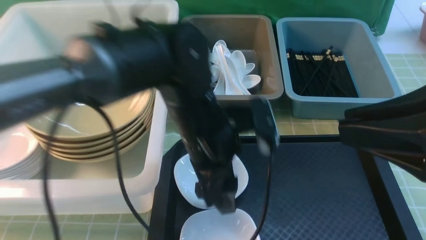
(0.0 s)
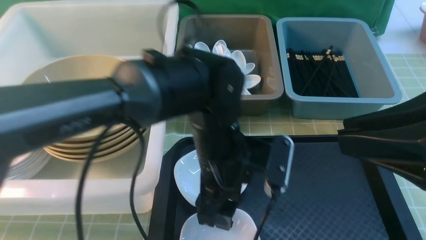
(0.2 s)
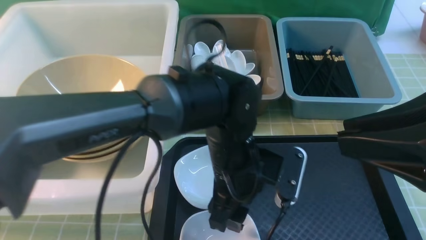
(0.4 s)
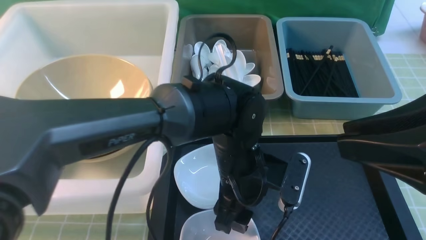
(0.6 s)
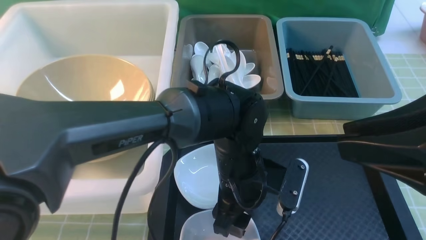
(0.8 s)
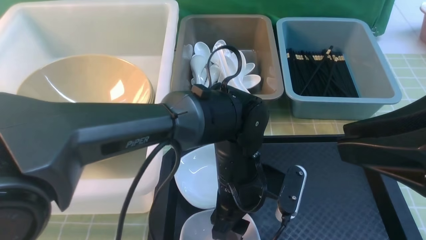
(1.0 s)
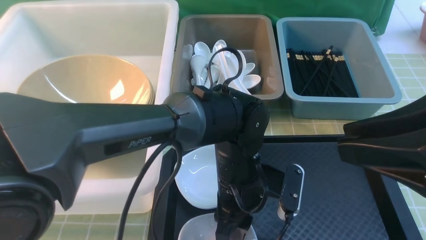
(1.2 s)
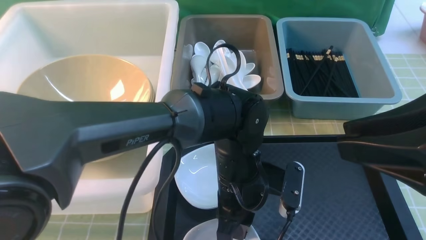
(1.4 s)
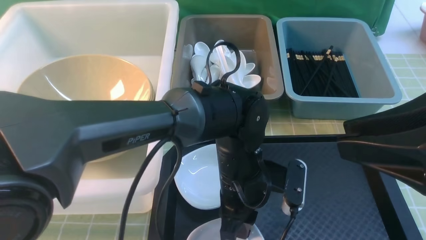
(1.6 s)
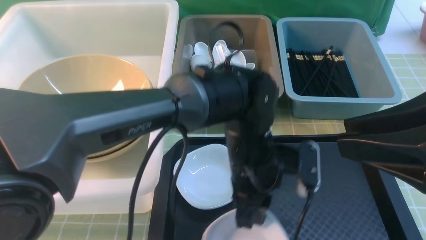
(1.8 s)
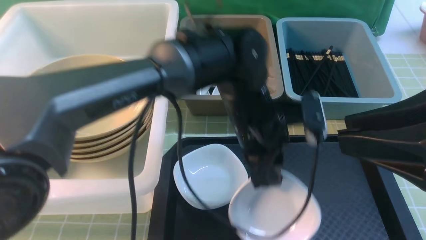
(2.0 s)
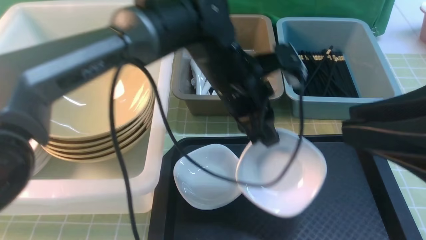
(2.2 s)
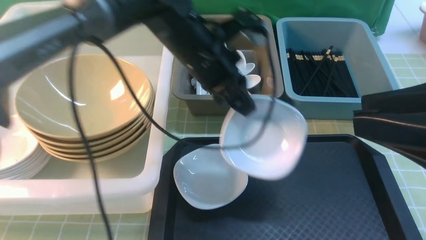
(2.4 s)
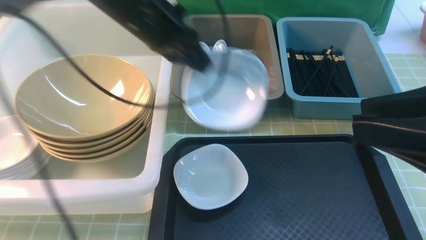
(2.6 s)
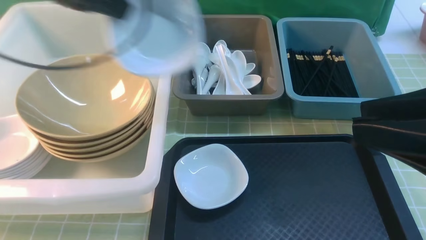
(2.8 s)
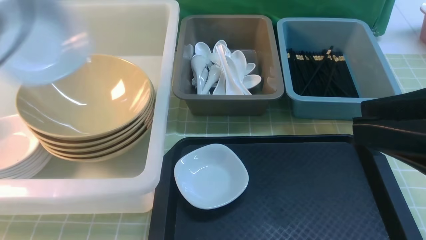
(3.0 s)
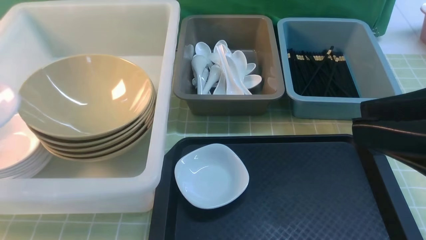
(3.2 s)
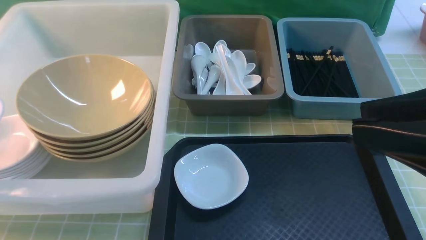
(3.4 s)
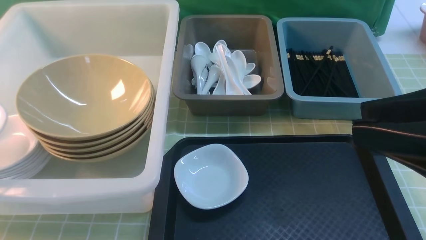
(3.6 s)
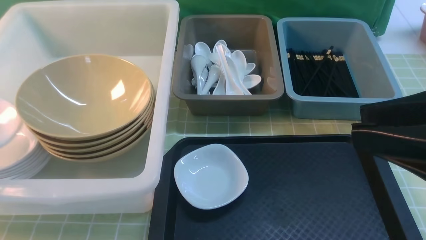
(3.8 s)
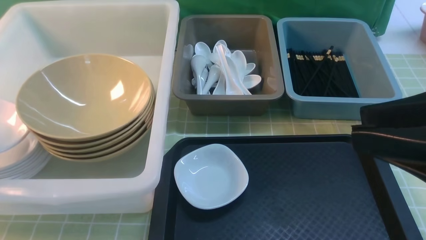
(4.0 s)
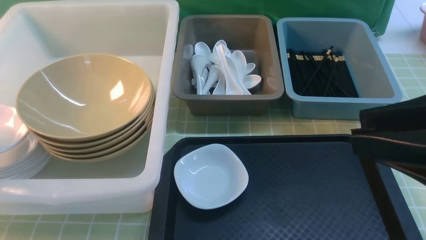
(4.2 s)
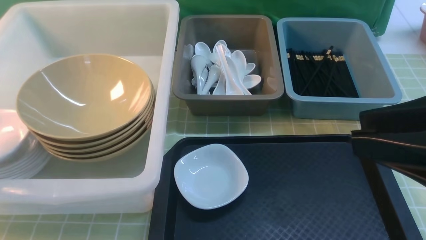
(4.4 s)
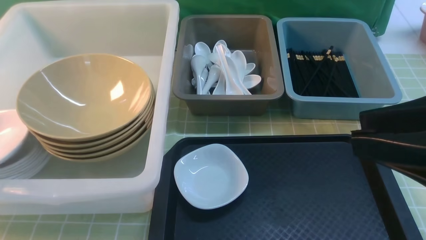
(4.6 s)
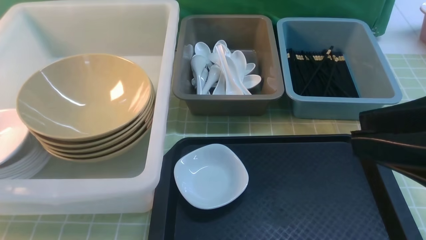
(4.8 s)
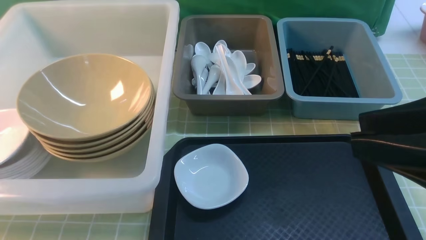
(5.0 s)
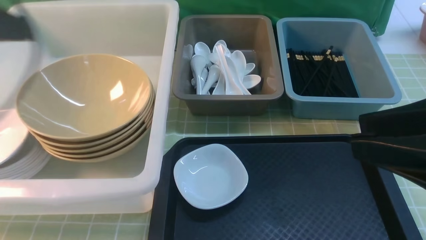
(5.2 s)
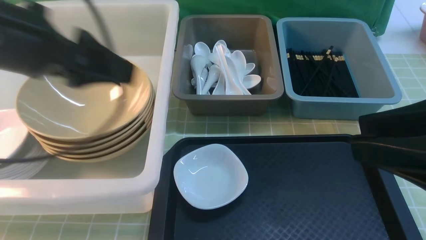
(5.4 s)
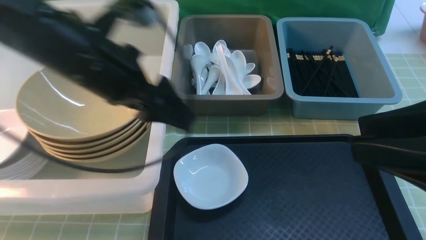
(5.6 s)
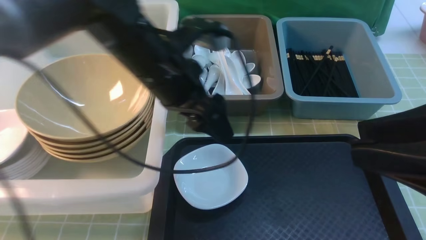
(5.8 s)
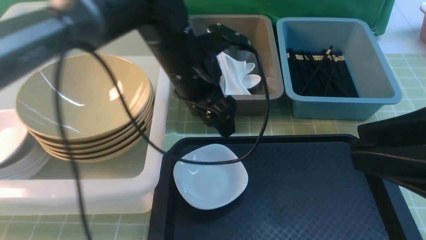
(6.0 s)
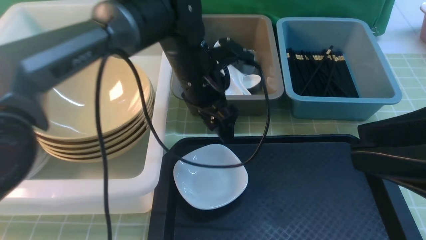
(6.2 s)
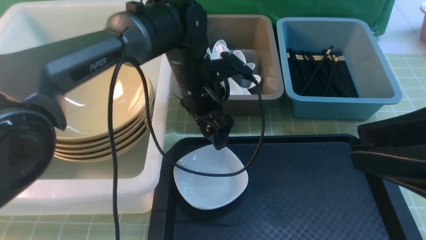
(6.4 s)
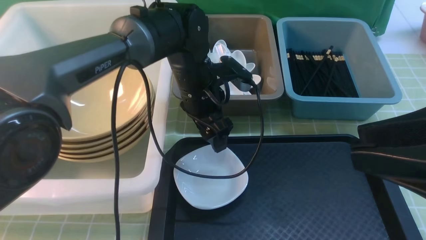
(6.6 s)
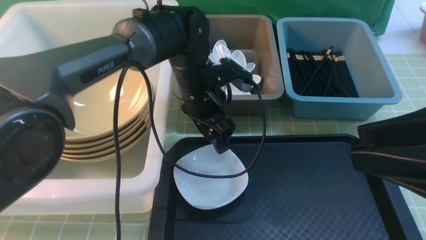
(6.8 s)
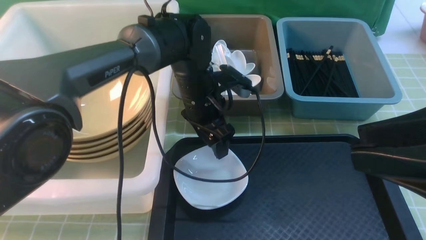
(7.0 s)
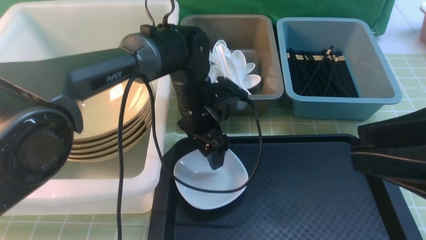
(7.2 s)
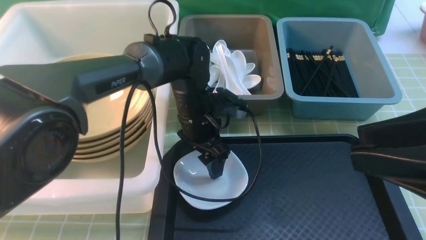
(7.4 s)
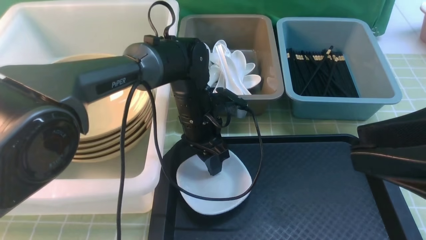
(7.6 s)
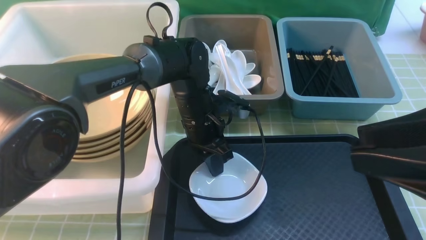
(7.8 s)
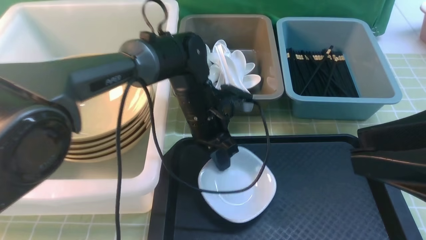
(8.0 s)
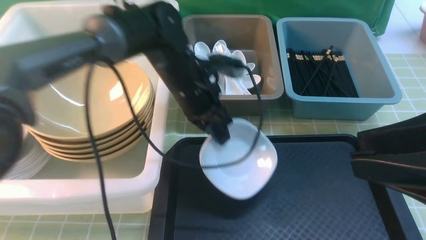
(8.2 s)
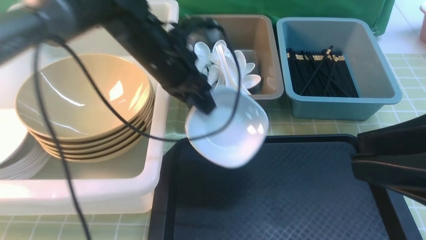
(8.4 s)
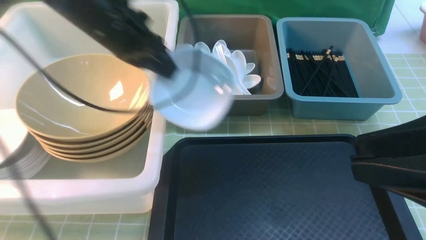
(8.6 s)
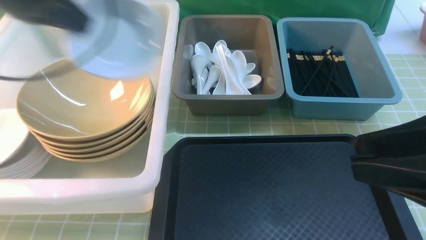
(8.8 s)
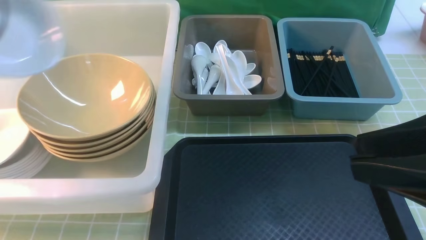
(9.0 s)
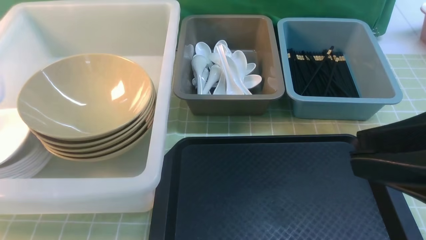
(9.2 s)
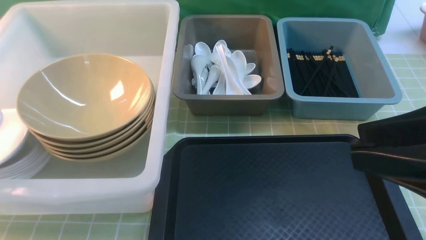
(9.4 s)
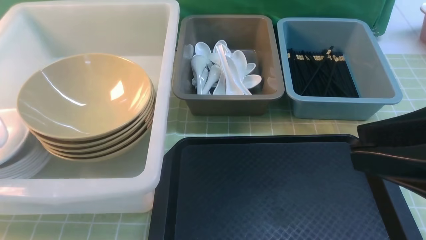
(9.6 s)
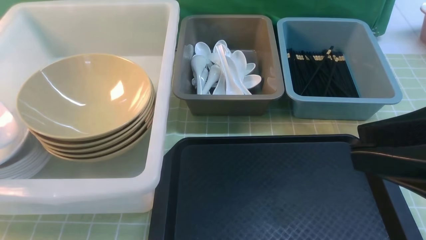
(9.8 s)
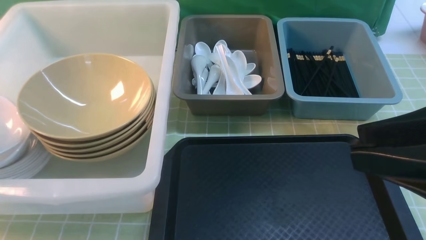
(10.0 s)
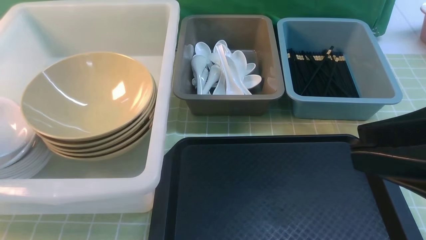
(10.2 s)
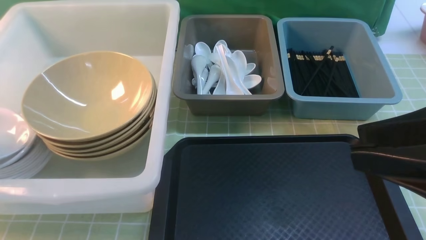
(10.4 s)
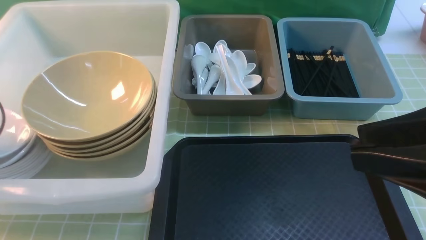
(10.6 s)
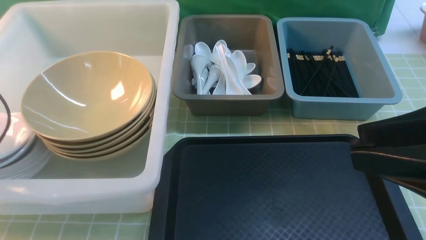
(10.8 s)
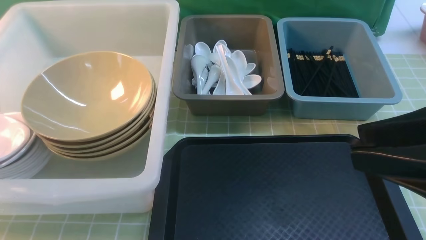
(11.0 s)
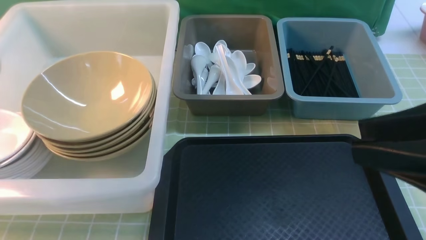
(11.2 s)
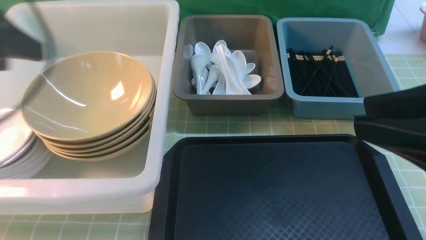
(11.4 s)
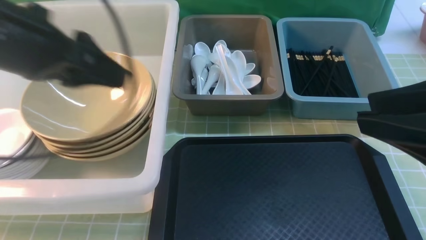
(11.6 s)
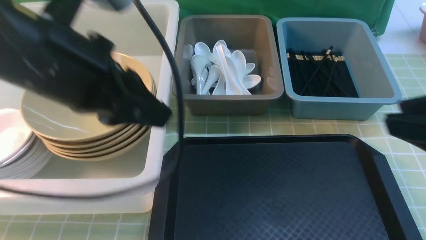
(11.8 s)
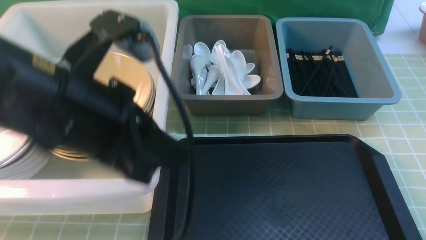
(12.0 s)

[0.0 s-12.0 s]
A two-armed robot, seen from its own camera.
Task of the whole recording: on green table put chopsticks spoon bowls plates into blue grey white boxes.
Step, 0.0 to 2.2 s: use the left arm to grab the plate.
Step, 2.4 to 5.0 s: use the left arm to put the plate into the large storage box on the left.
Step, 5.4 to 8.4 s: use the left arm to grab the plate.
Step, 8.6 to 11.2 s: use the left arm to put the plate into the large storage box on the left.
0.0 to 1.6 s: The left gripper moves downward and to the right, roughly 10 cm, and closes its fingers.
1.6 to 3.0 s: The left gripper travels to the left and upward by about 40 cm.
3.0 to 4.4 s: The left gripper is displaced downward and to the left by some 15 cm, and opens up.
4.4 to 6.0 s: The left gripper moves to the right, some 35 cm.
6.0 to 7.6 s: The left gripper heads downward, covering about 10 cm, and closes.
7.6 to 9.0 s: The left gripper shifts approximately 40 cm to the left and upward, and closes its fingers.
9.0 to 10.4 s: The left gripper moves downward and to the left, about 15 cm.
10.4 to 12.0 s: The right gripper heads to the right, covering roughly 5 cm. The left gripper travels to the right by some 30 cm, and opens, then closes again.

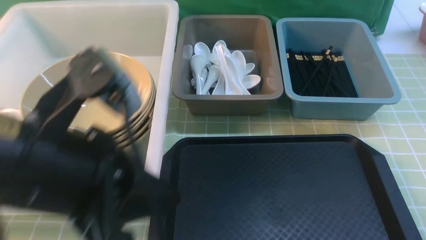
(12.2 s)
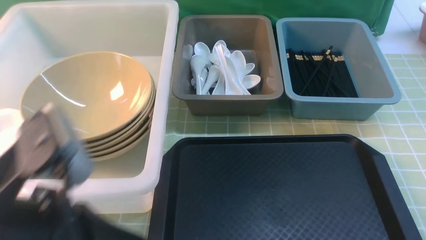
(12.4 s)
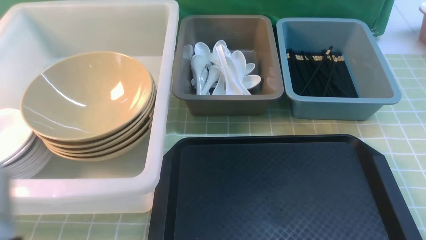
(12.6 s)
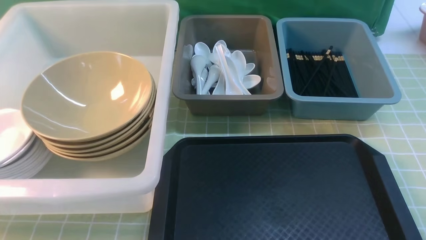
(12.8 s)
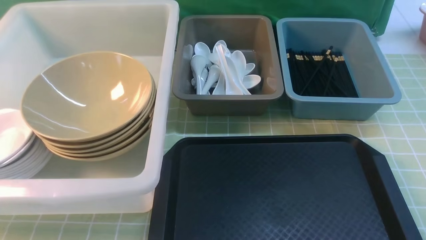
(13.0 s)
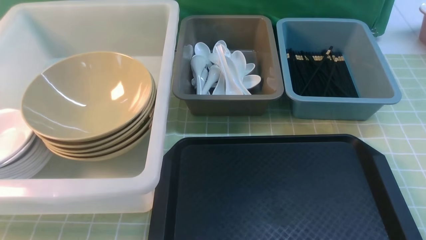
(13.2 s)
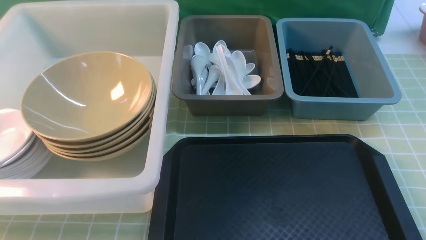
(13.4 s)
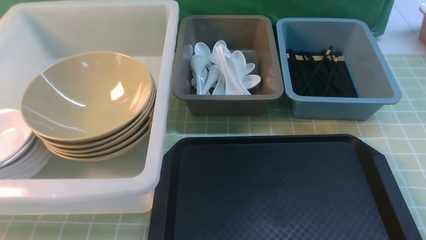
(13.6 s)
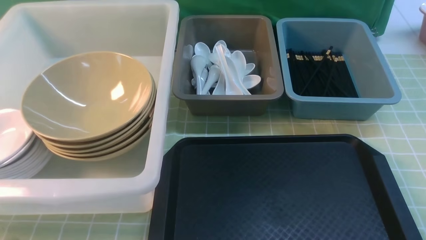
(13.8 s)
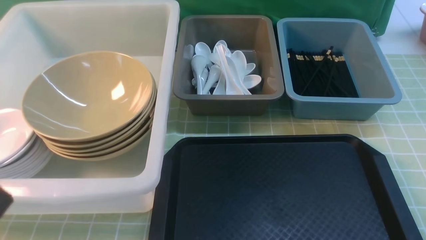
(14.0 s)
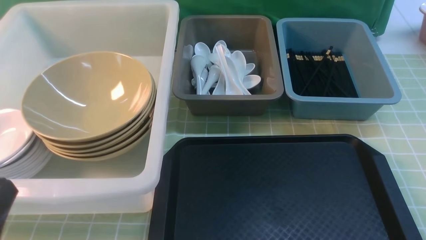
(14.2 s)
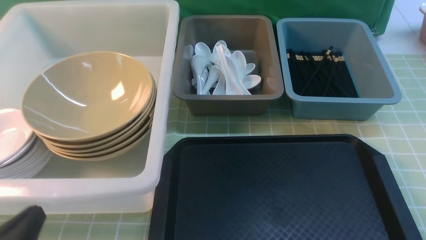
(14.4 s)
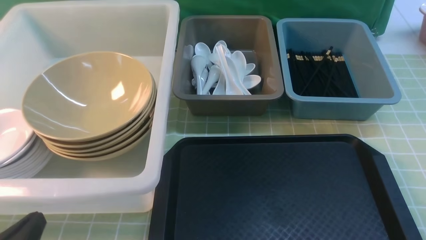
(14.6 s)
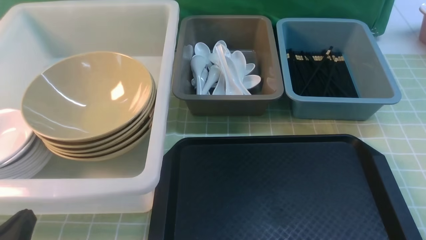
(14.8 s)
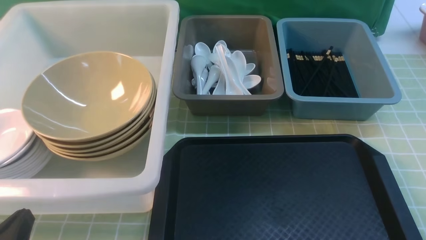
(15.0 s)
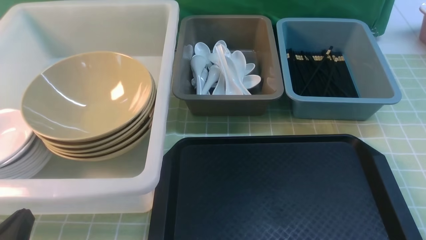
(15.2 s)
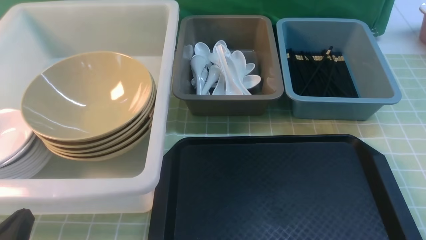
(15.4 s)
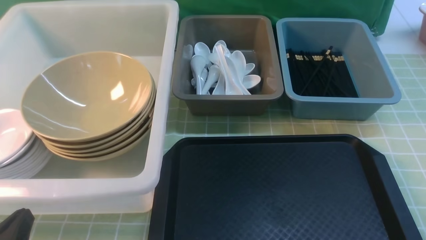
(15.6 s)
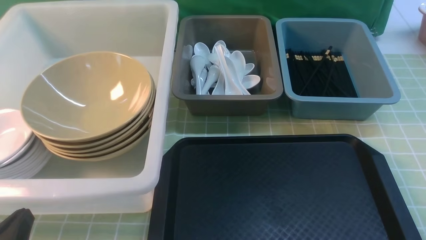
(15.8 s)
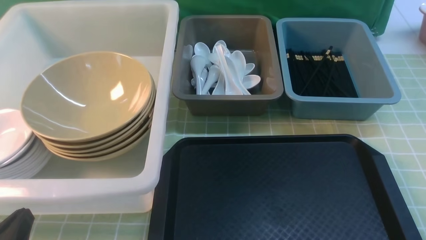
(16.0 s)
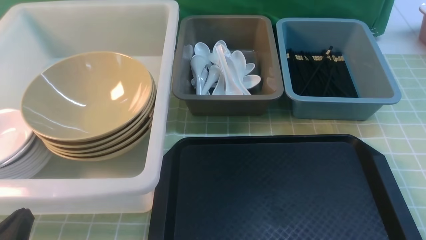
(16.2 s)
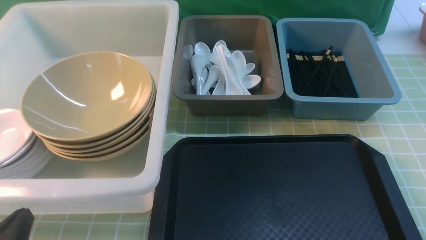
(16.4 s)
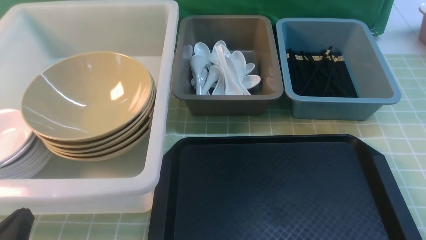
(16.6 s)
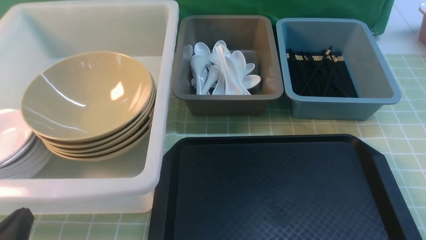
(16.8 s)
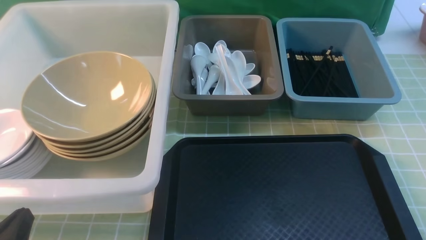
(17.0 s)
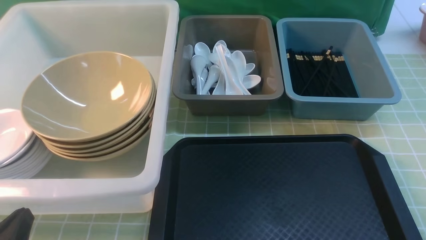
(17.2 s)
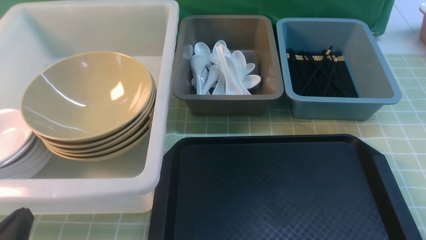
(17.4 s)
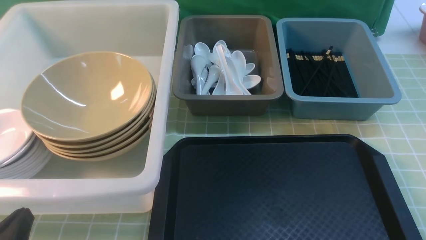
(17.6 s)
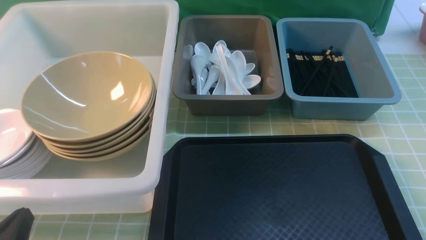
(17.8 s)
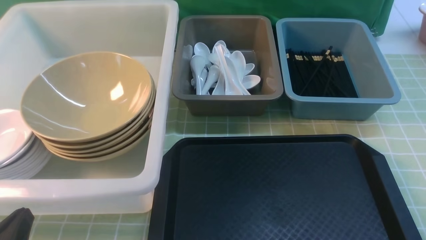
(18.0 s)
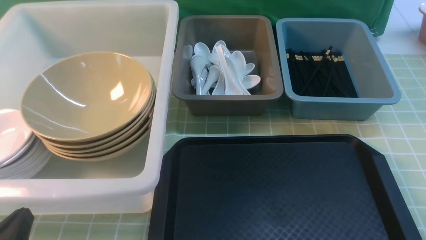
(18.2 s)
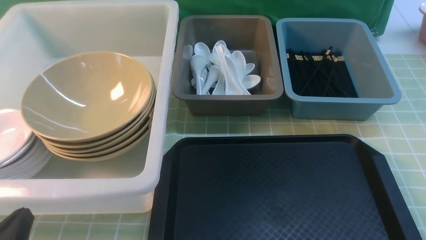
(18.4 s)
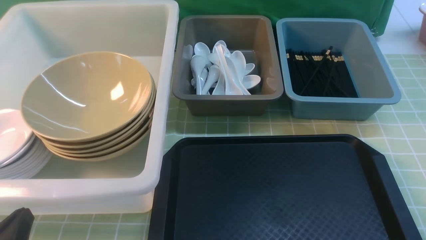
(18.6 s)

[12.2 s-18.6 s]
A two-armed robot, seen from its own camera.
Task of the whole recording: on green table put chopsticks spoon bowls plates into blue grey white boxes.
12.2 to 13.8 s: The right gripper shifts about 5 cm downward, while the left gripper travels backward, to the left and downward by approximately 15 cm.
13.8 to 15.4 s: The left gripper is displaced downward and forward by some 15 cm.
17.0 to 18.6 s: Both grippers stay about where they are.
